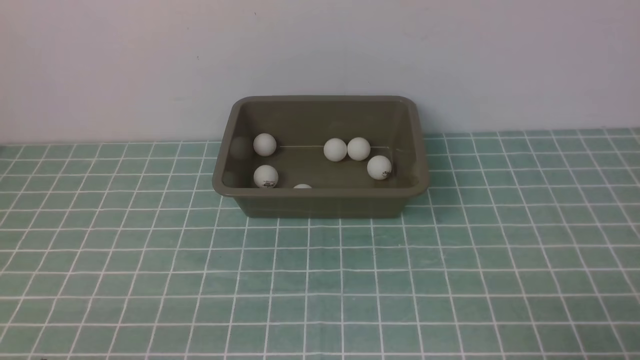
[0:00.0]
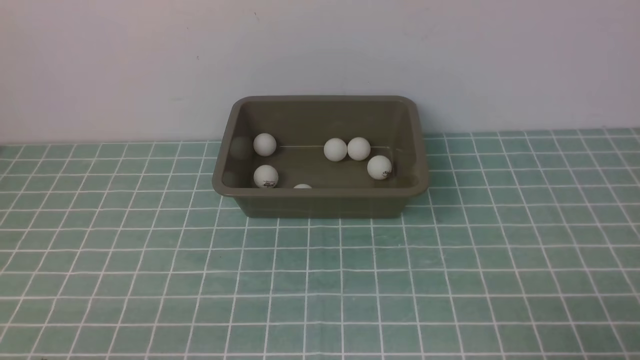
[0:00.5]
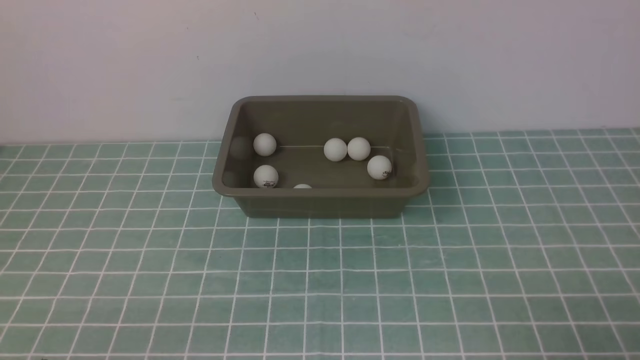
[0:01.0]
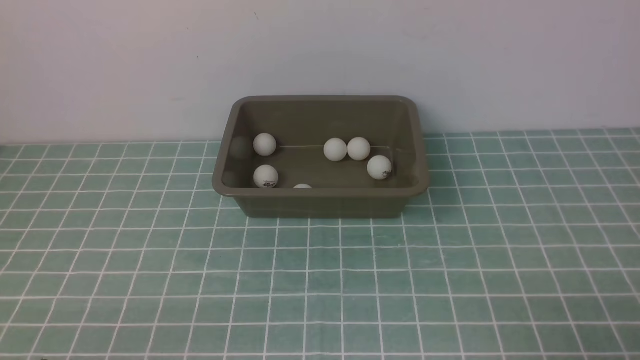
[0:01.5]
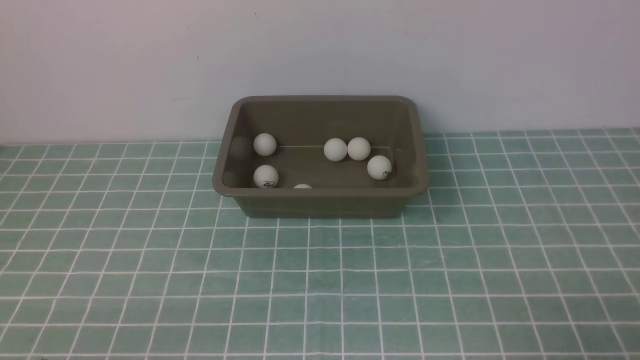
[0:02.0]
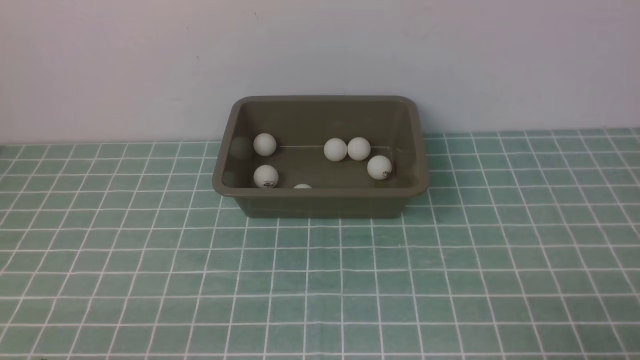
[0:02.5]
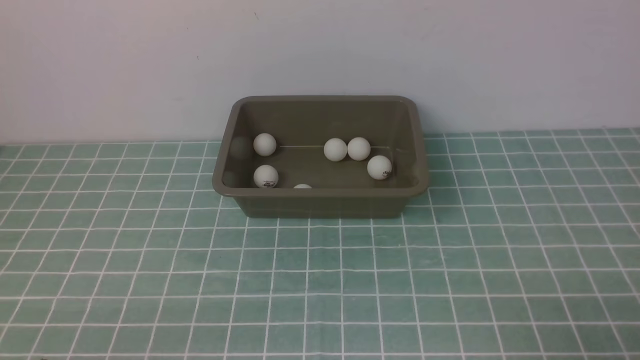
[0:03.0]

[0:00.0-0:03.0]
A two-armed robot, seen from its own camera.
0:00.0 to 0:03.0: Both grippers stay put.

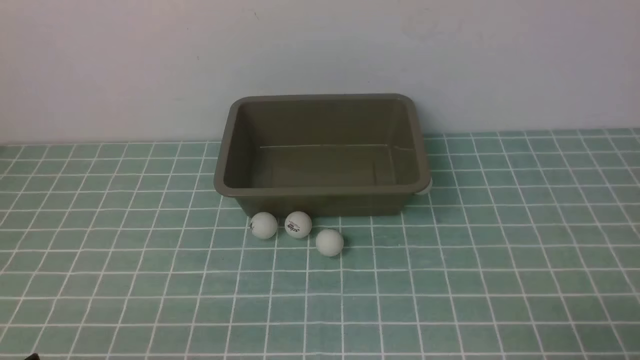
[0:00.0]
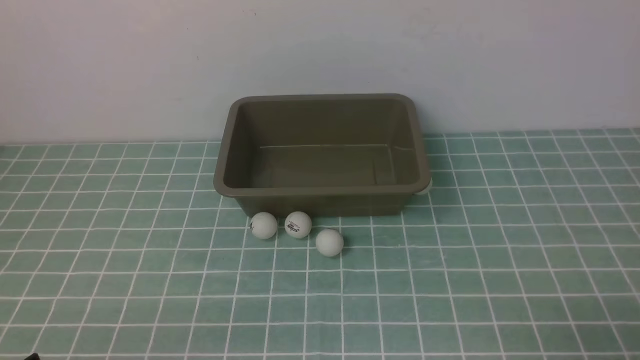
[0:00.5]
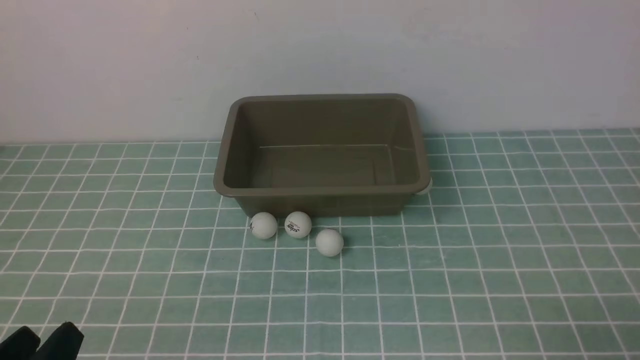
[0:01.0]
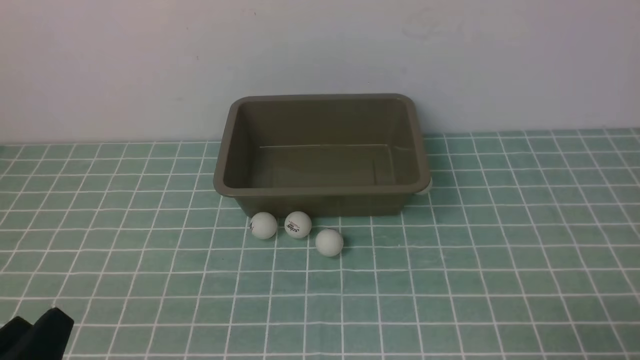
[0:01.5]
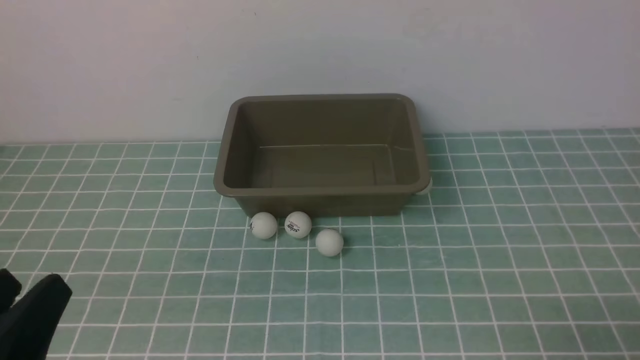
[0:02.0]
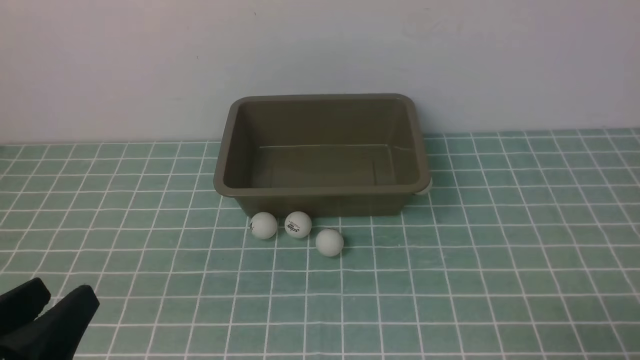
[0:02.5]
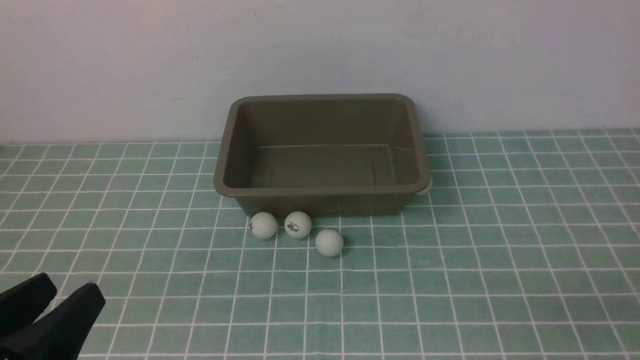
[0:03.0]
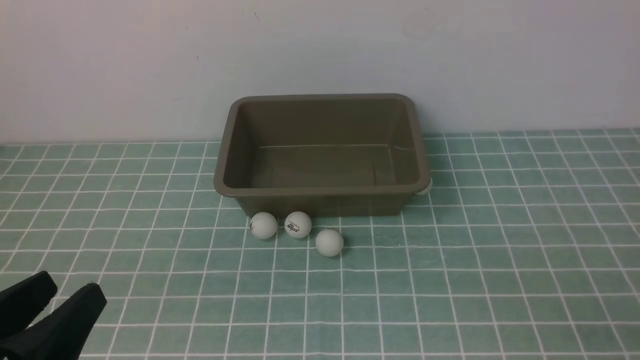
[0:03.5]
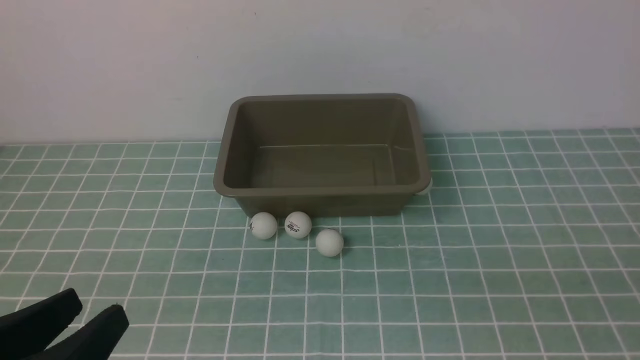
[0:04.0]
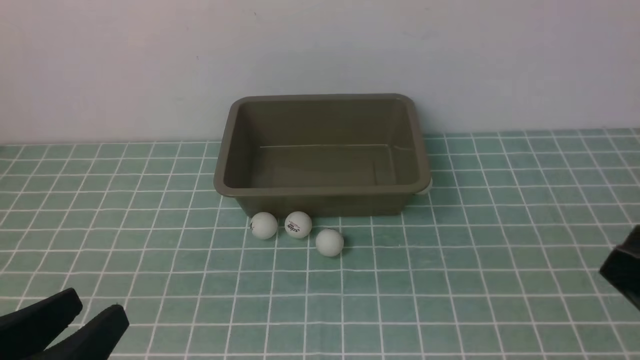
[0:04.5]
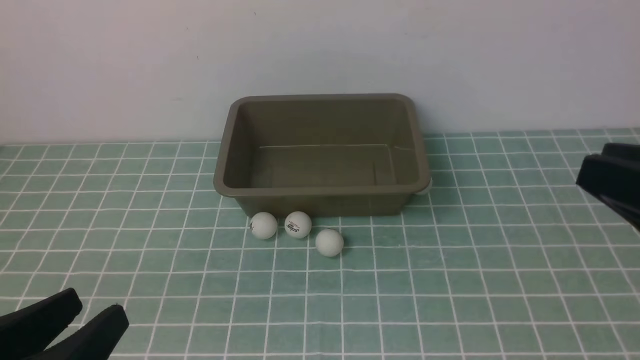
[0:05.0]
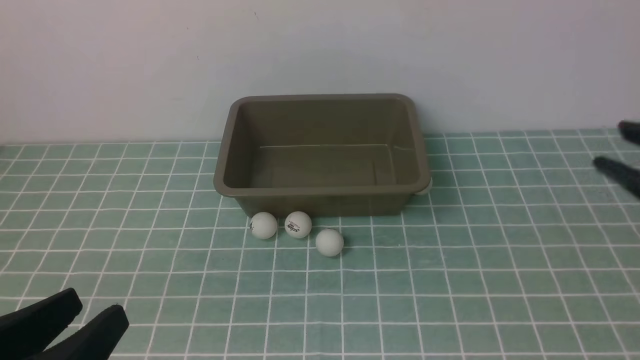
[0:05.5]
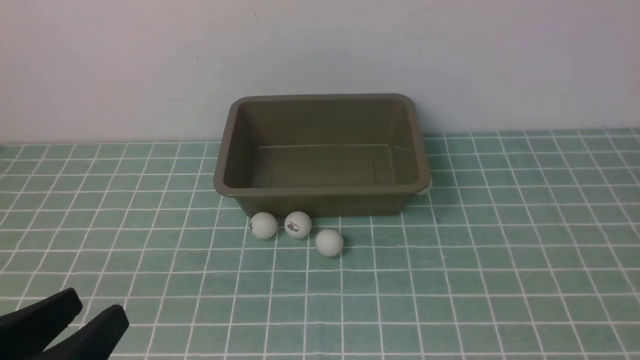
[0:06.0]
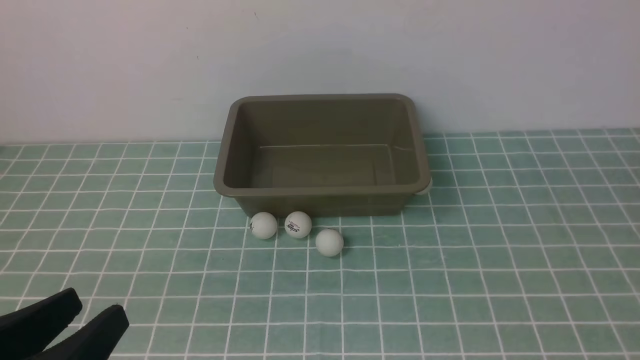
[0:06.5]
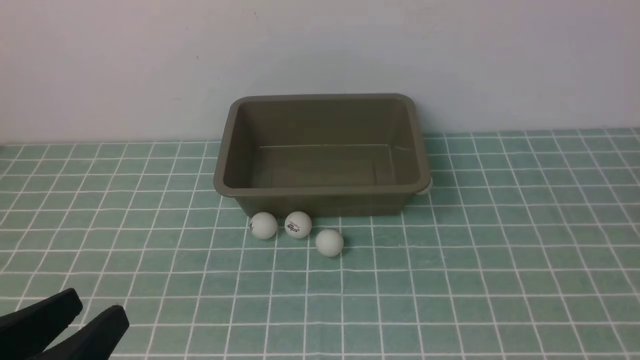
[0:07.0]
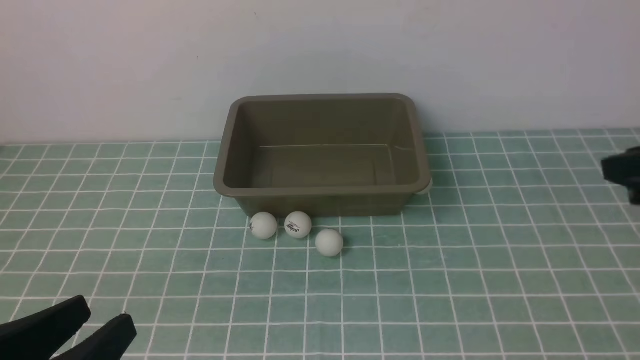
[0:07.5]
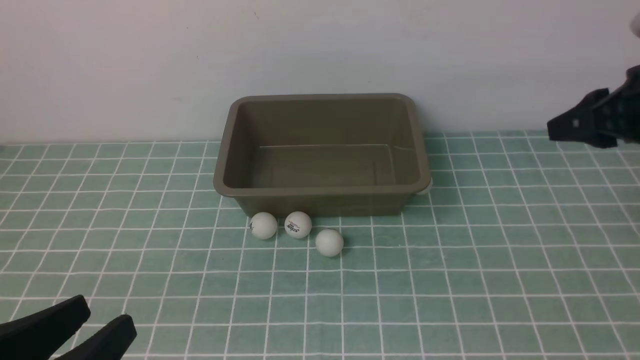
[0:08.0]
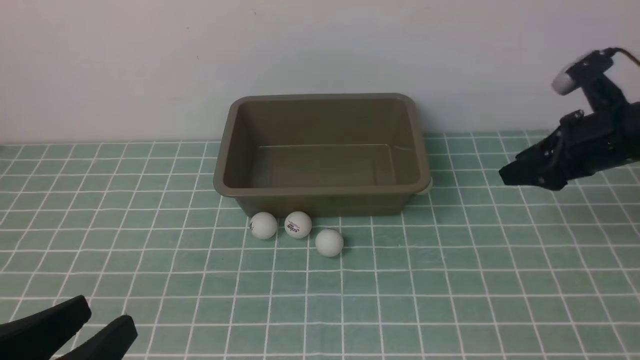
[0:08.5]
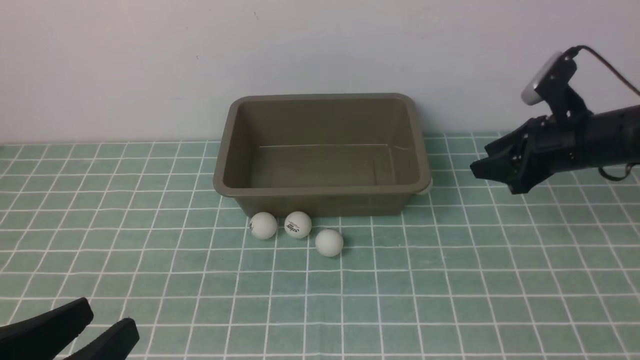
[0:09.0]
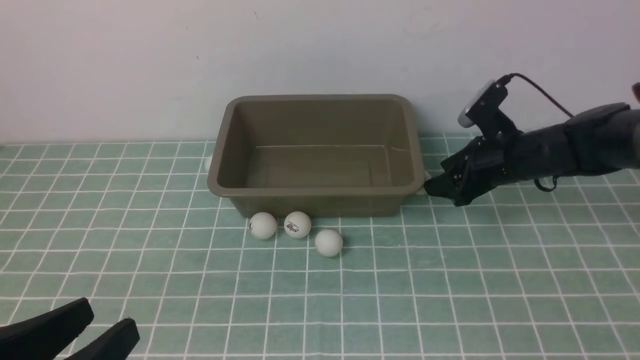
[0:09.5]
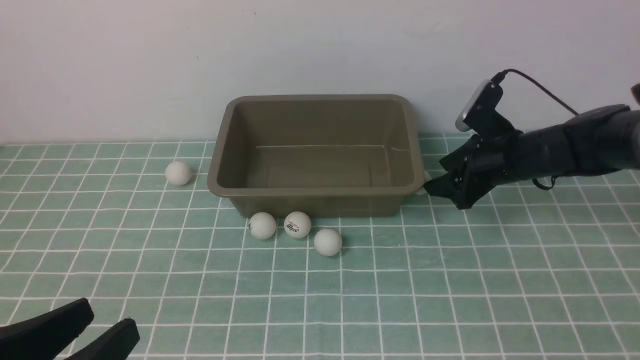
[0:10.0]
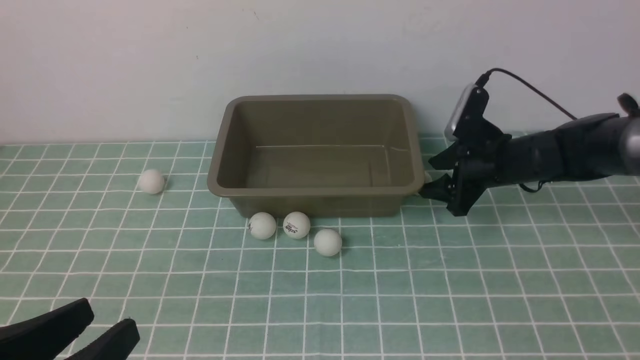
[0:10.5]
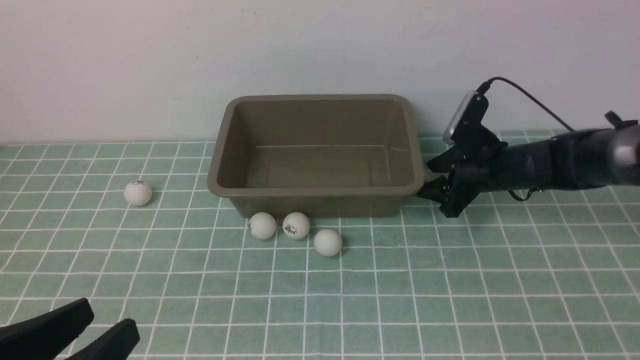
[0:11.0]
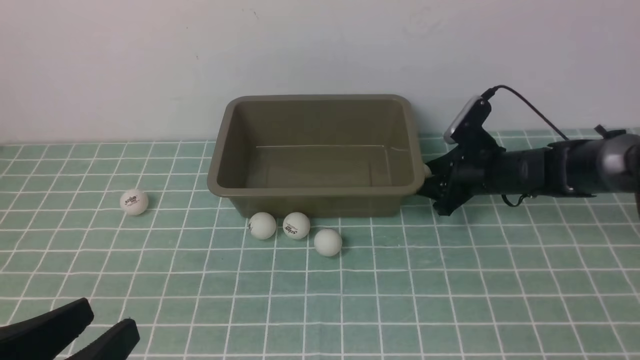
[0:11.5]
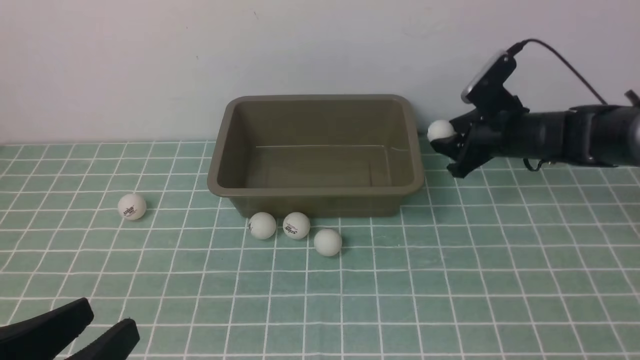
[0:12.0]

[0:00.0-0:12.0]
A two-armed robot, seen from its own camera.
Step, 0:00.0 to 0:12.0: use the right arm to clamp the table tennis ball closest to it.
0:00.0 to 0:02.0: The left gripper moves upward, some 10 cm.
0:06.0 to 0:08.0: The right gripper goes some 15 cm forward.
0:08.0 to 0:10.0: The right gripper travels downward, forward and to the left by approximately 20 cm, and opens.
0:10.0 to 0:12.0: The grippers move only a little.

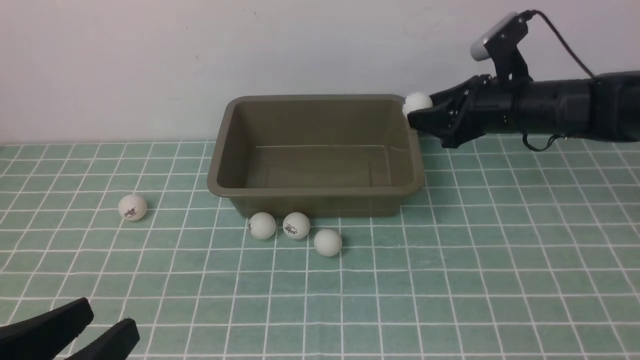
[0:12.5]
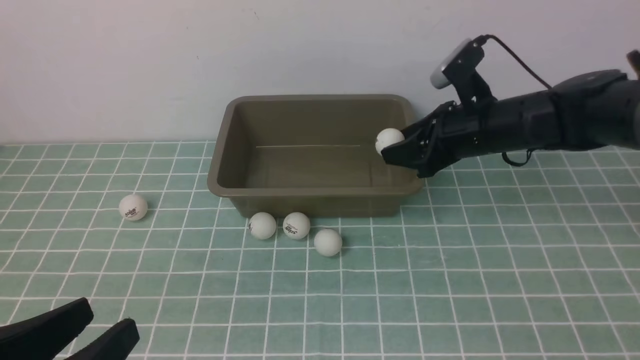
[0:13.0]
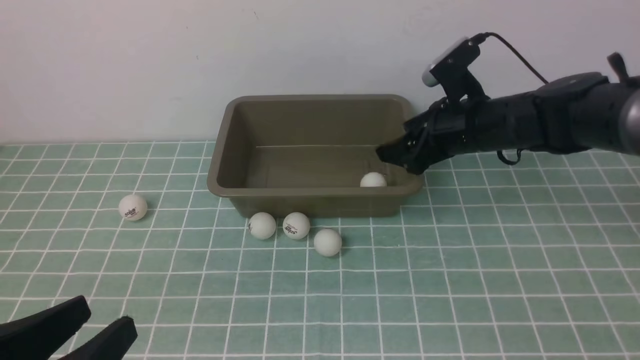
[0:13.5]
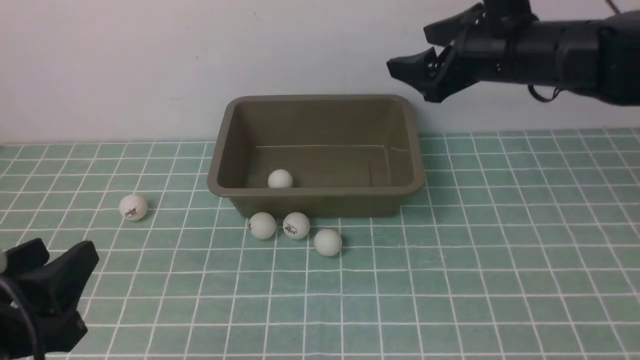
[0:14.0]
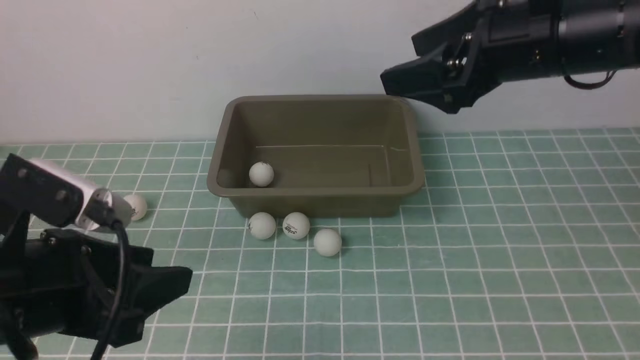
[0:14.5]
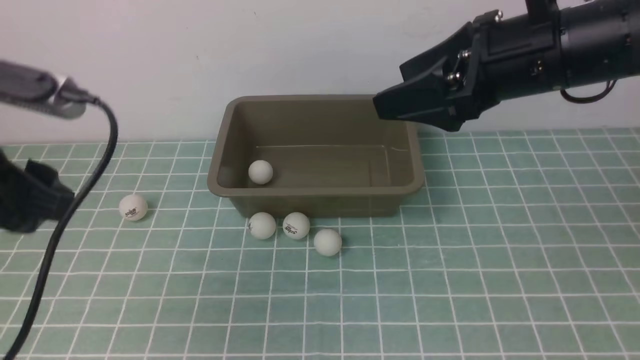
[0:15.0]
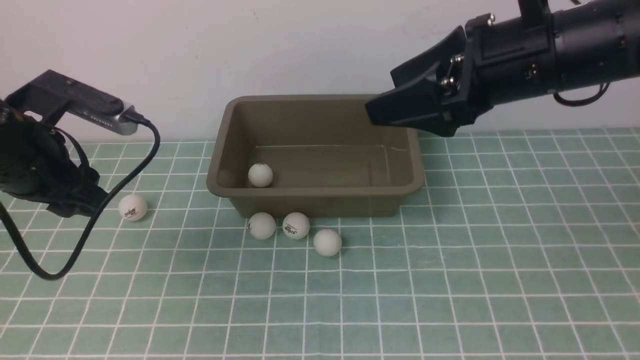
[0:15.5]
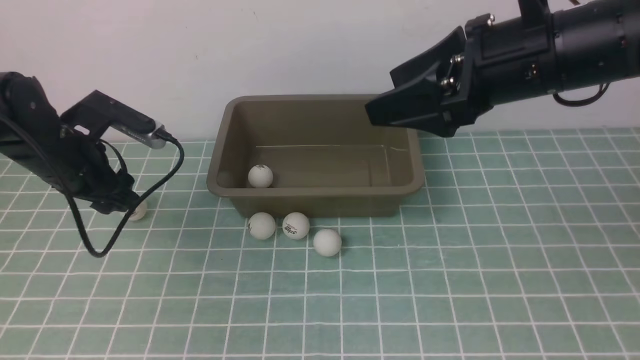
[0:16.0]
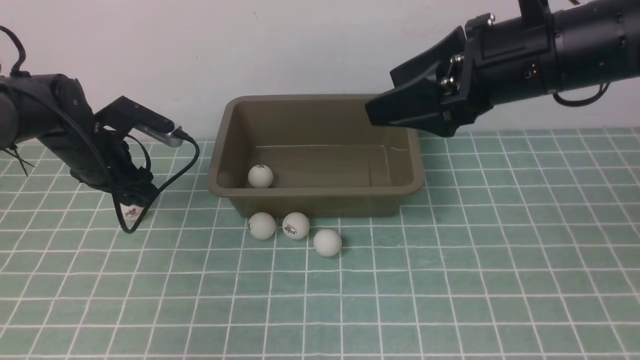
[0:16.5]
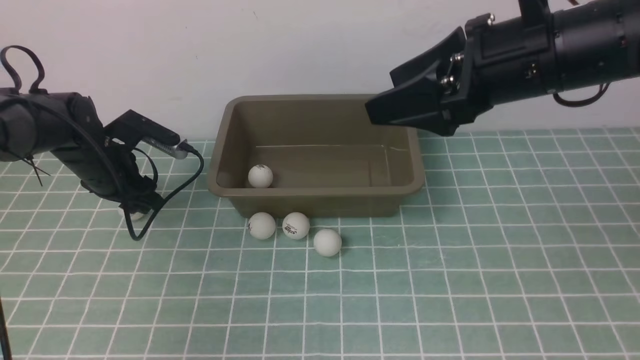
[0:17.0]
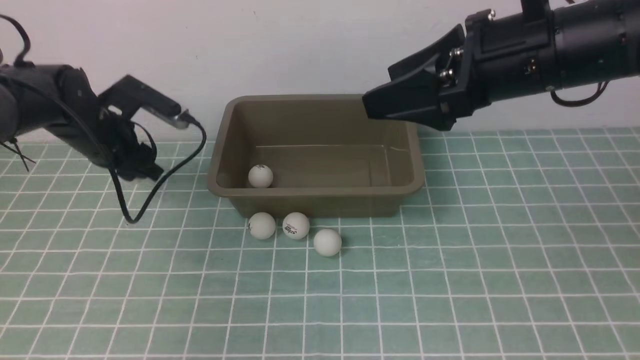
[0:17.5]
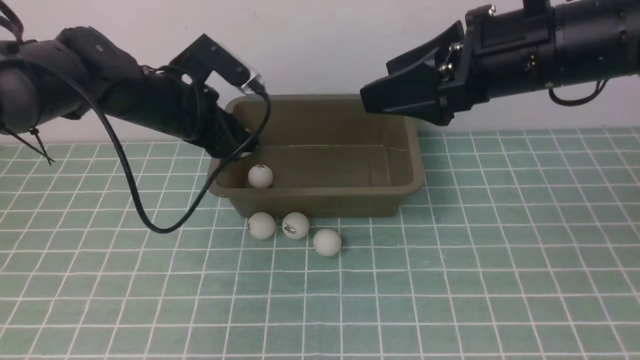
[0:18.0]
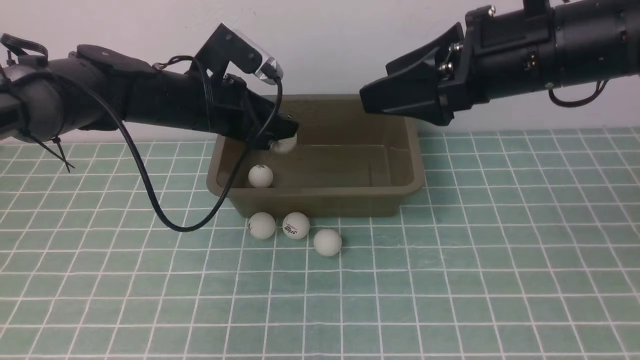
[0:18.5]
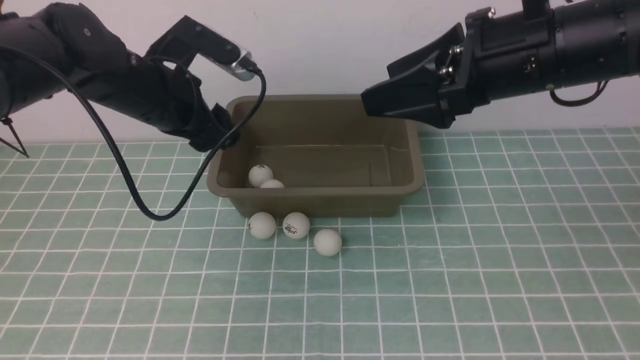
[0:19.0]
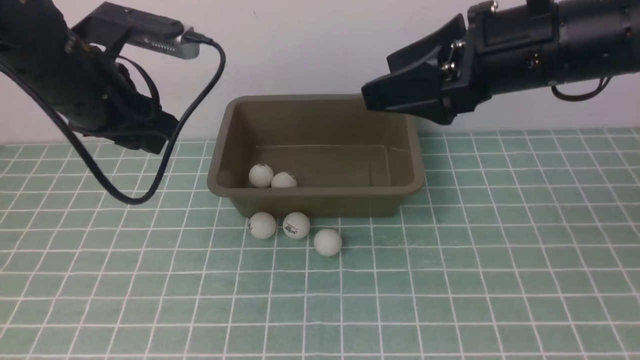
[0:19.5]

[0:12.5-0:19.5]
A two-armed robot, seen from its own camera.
Step, 0:12.5 to 0:13.5: use the right arm to put the table tennis ball into the box.
Step, 0:14.0 to 0:17.5: use the left arm to clamp the table tennis ball closest to it.
Step, 0:18.0 to 0:18.5: use the left arm to put the table tennis ball into the box.
0:12.5 to 0:14.5: The right gripper shifts about 15 cm upward and backward, and opens, while the left gripper heads forward and upward, covering roughly 15 cm.
0:14.5 to 0:16.0: The left gripper shifts about 20 cm forward and downward.
0:16.0 to 0:17.5: The left gripper travels forward by roughly 5 cm, and goes downward and returns, roughly 5 cm each way.
0:17.5 to 0:19.5: The left gripper is displaced upward and backward by about 20 cm.
